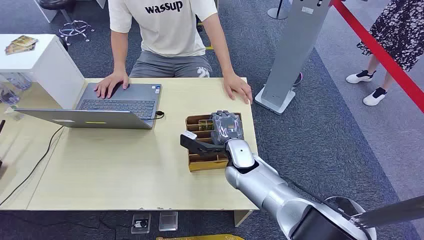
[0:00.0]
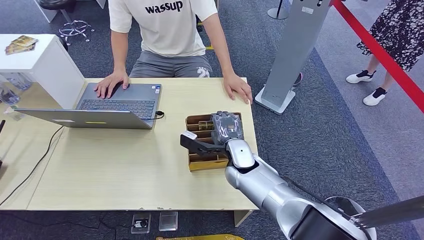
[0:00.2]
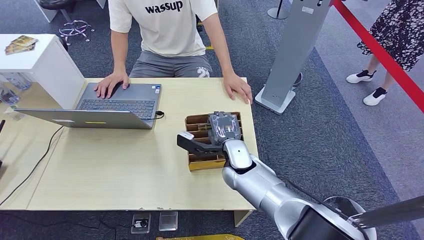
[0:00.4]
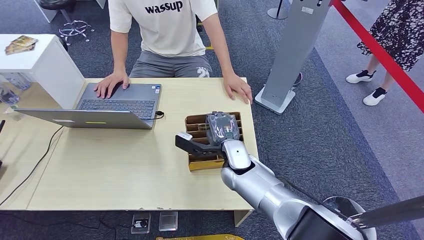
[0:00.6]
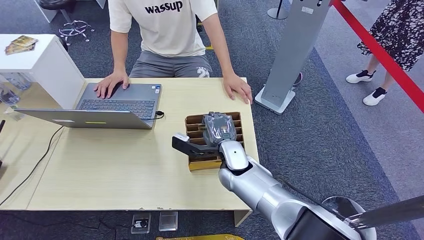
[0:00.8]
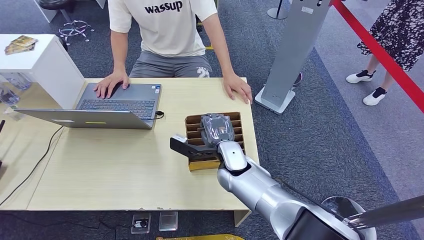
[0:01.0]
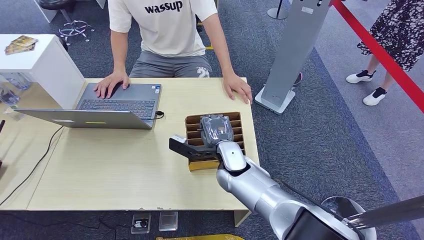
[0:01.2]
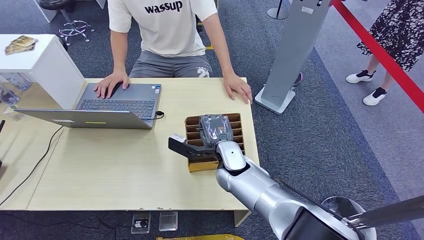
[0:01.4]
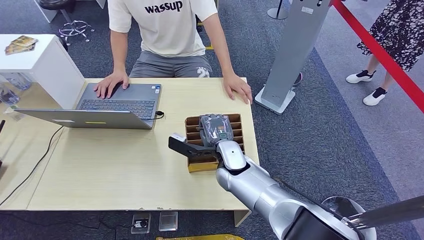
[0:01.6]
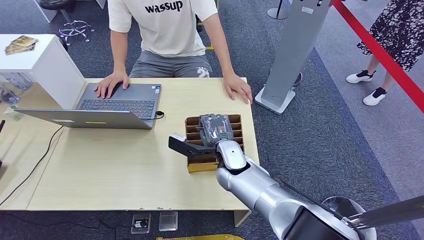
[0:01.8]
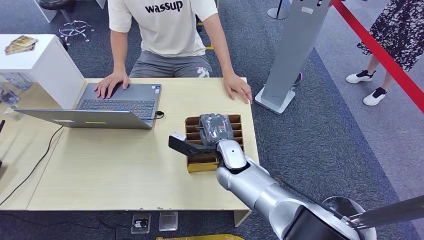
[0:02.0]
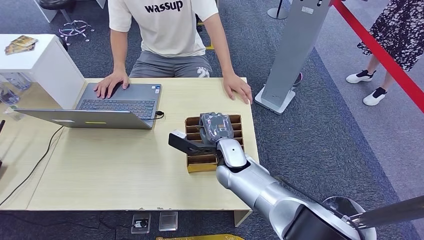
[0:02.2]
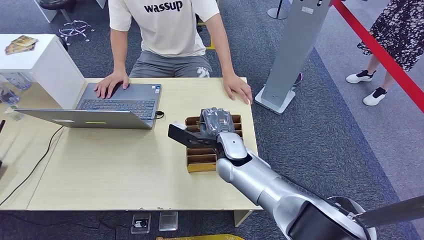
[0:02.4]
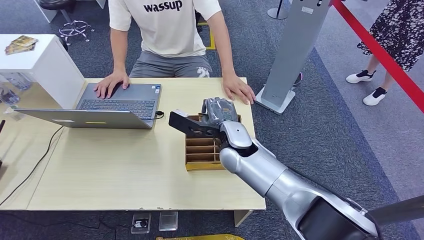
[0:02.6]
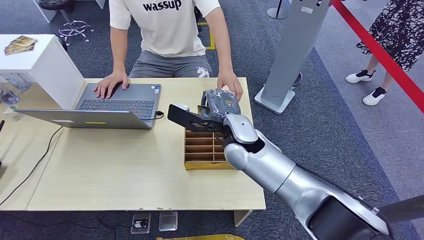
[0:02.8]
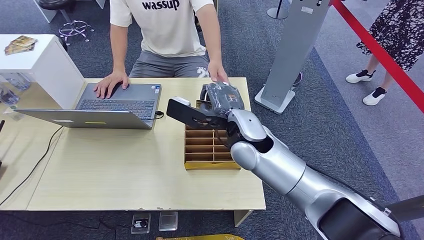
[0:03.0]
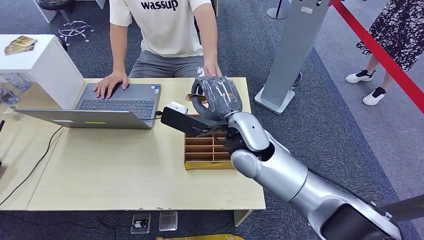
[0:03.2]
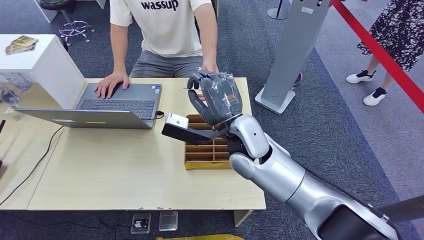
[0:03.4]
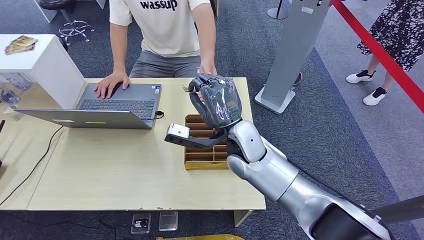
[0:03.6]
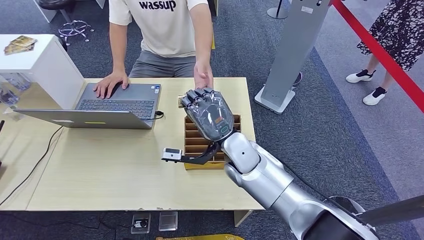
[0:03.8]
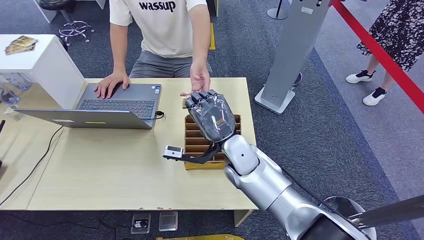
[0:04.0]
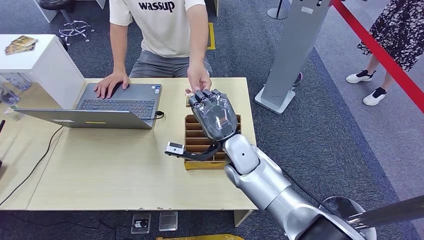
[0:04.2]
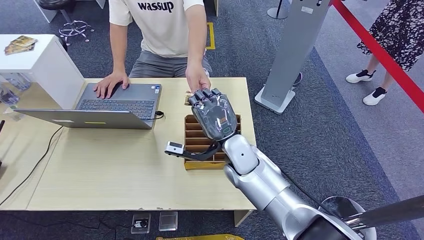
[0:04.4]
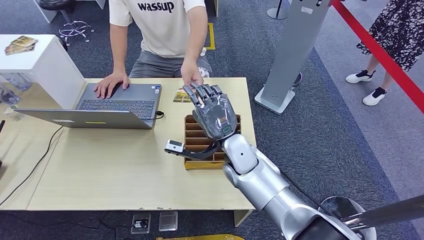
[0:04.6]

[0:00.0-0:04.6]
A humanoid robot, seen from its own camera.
Step, 0:00.0 to 0:02.6: Pick up the room card from the card holder.
Step, 0:03.0 to 0:04.6: Hand the room card to the target.
0:01.6 to 0:03.0: The right hand goes some 15 cm upward.
0:03.0 to 0:04.6: The right hand is displaced downward by about 10 cm.
